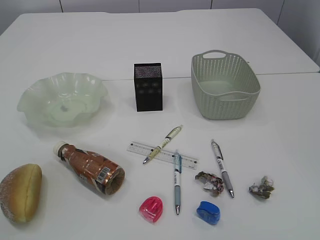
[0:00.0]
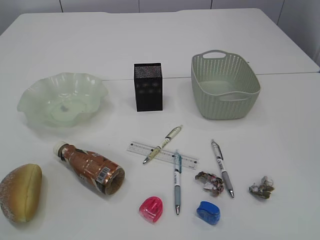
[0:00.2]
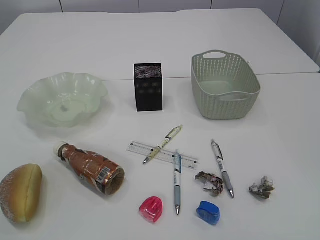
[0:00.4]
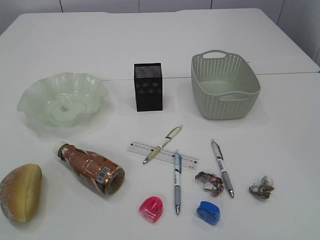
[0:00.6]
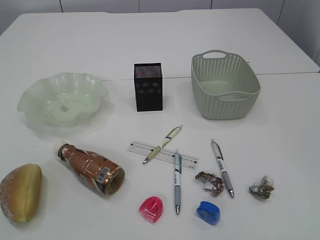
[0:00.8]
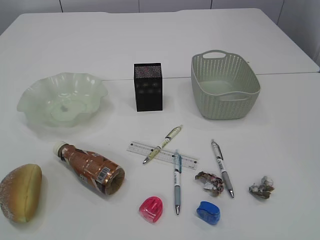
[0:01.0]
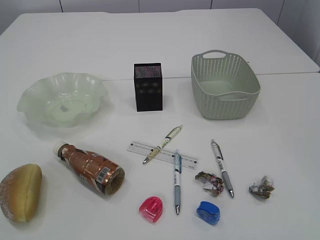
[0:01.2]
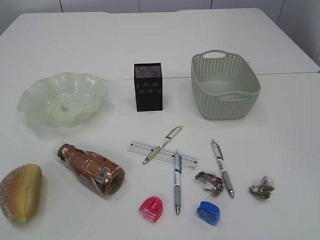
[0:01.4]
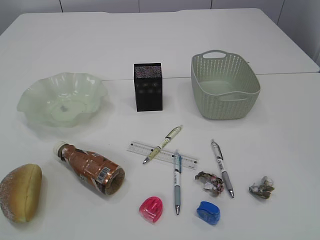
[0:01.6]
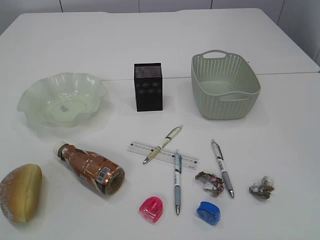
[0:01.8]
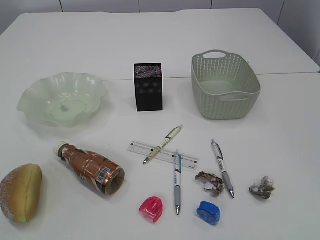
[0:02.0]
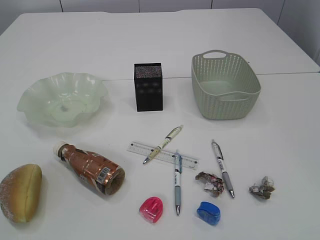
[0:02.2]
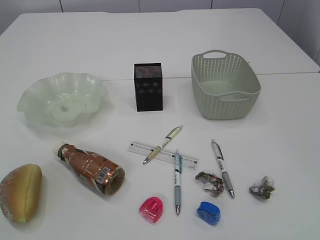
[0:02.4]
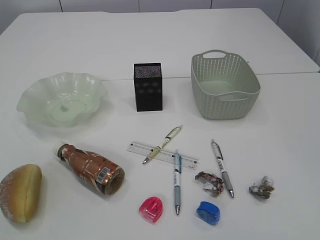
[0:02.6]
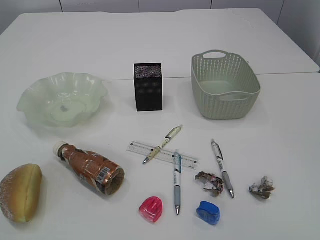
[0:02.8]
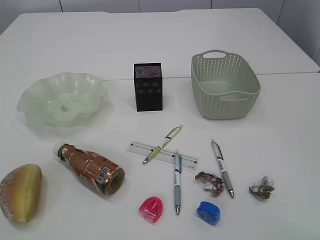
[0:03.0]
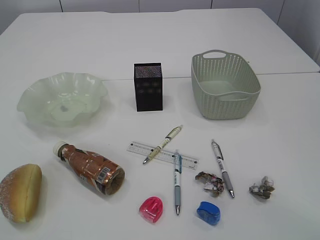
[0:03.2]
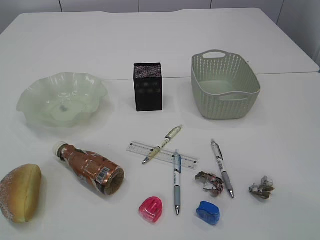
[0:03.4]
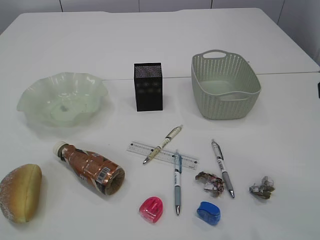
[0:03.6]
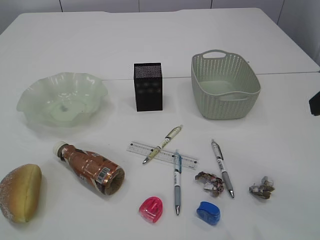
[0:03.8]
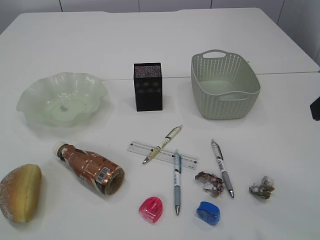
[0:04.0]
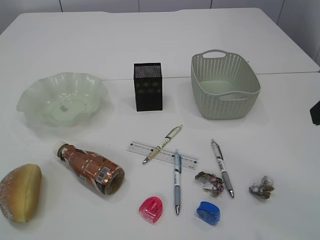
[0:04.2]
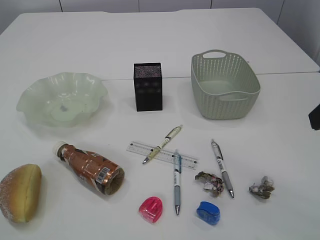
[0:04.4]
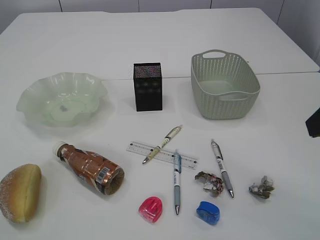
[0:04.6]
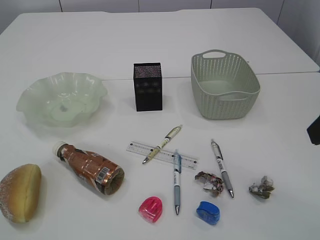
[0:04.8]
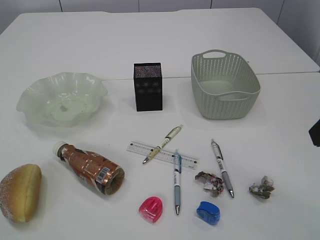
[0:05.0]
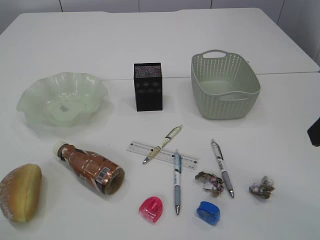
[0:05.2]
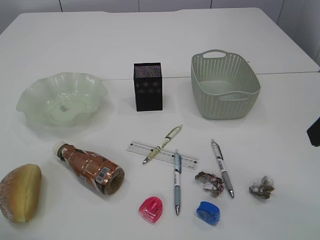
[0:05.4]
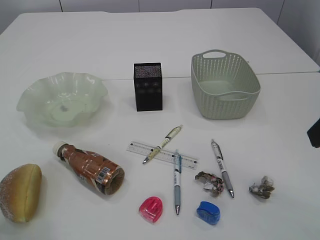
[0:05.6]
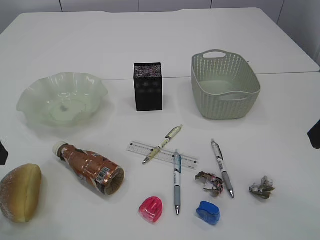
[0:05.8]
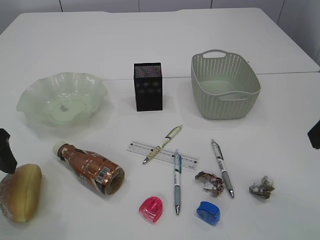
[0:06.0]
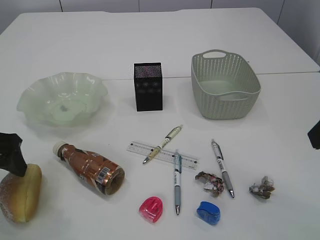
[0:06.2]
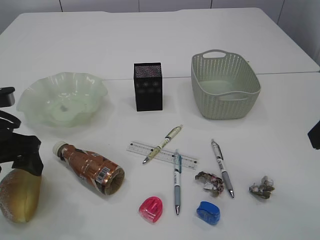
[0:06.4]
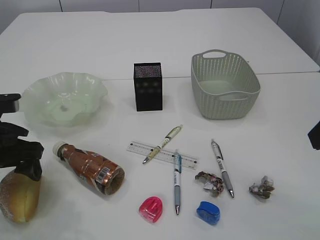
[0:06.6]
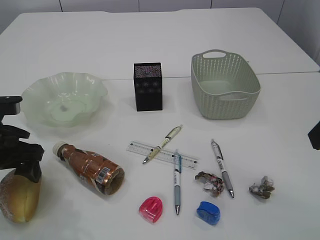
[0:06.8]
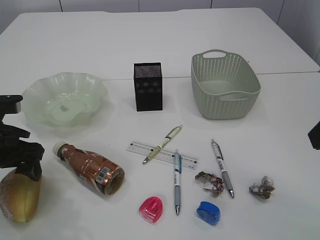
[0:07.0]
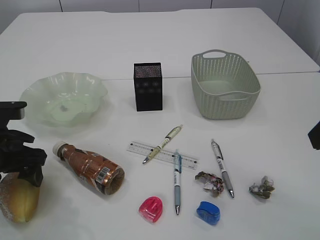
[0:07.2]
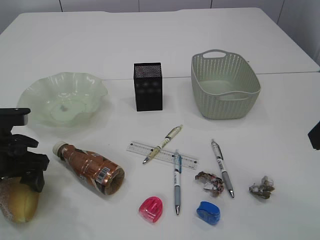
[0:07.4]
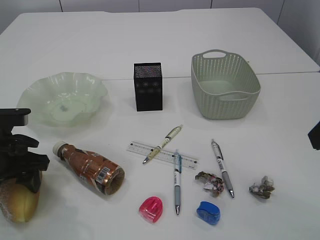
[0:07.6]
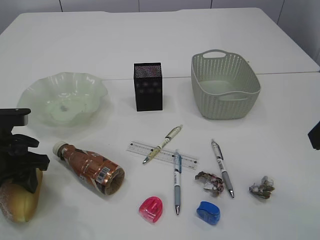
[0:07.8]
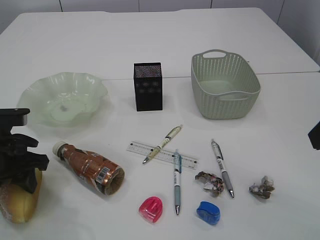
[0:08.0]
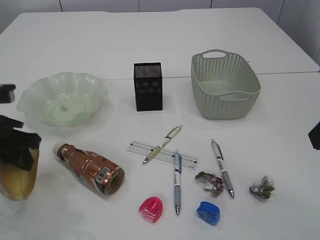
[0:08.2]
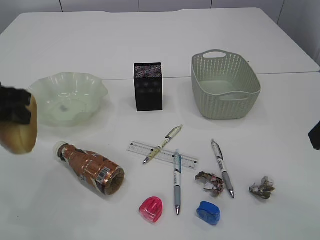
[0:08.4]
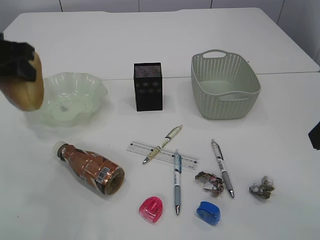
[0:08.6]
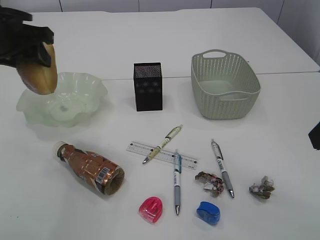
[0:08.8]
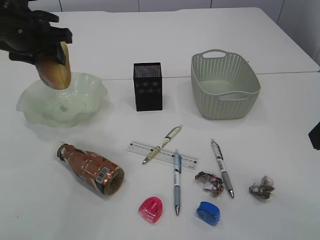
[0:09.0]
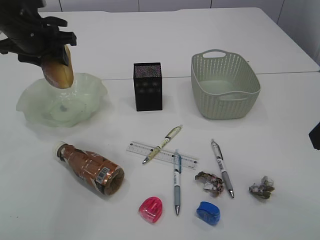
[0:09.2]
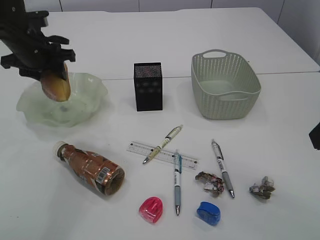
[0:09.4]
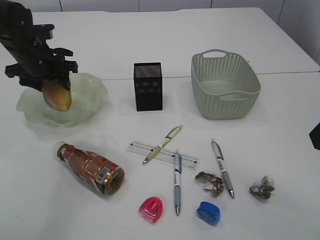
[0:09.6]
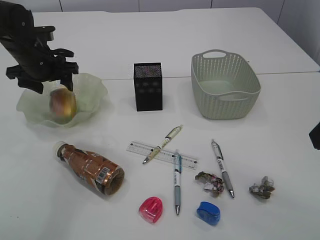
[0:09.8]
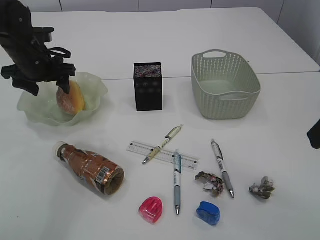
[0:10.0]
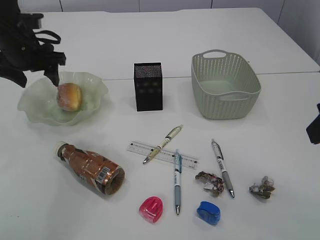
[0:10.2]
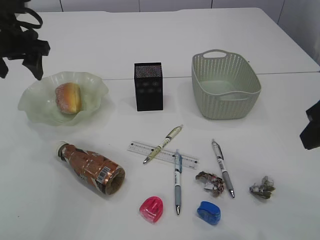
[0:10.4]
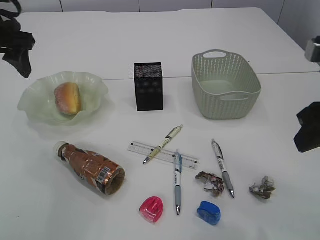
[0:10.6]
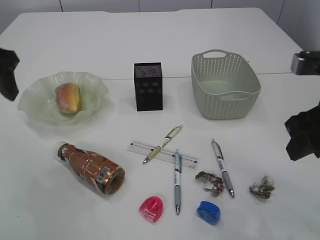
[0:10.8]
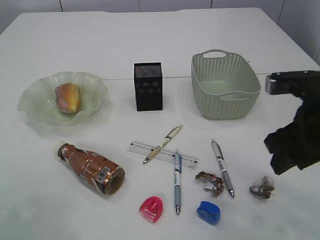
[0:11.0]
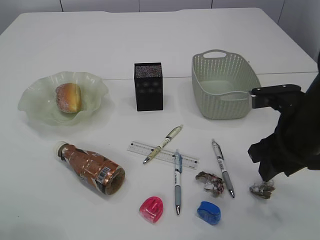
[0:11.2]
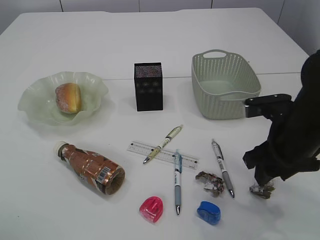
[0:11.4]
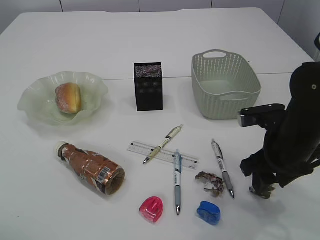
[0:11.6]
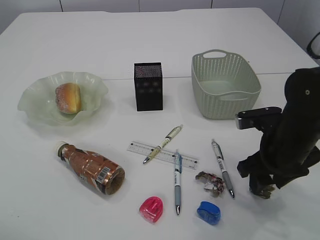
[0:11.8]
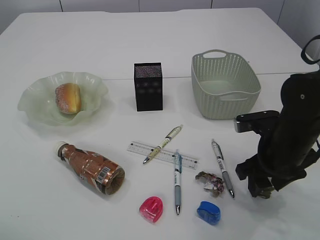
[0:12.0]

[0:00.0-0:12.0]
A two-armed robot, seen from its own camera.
Step, 0:08.4 to 0:10.2: place the bread in the plate.
0:04.4 to 0:06.0: The left gripper travels downward and forward by roughly 15 cm, and opens.
0:06.0 to 0:07.6: The left gripper goes roughly 5 cm downward, and closes up.
0:07.6 to 0:09.0: The left gripper shifts roughly 20 cm upward and forward, and closes its fingers.
0:09.0 to 0:10.4: The left gripper travels downward and back again, some 10 cm each way, and opens up.
0:10.4 to 0:12.0: The right gripper heads downward and forward, covering some 20 cm. Meanwhile the left gripper travels backward by about 25 cm.

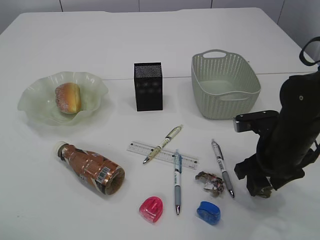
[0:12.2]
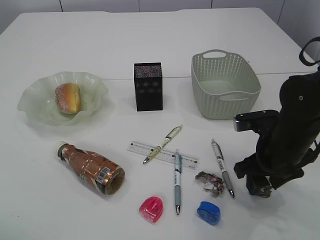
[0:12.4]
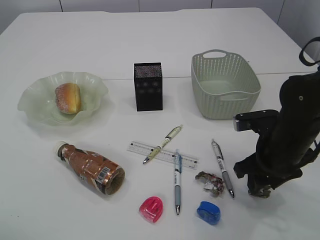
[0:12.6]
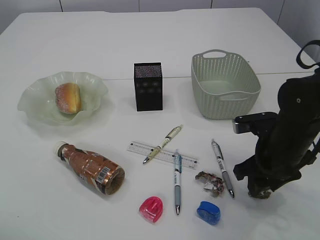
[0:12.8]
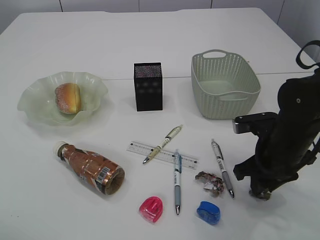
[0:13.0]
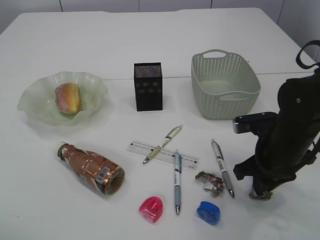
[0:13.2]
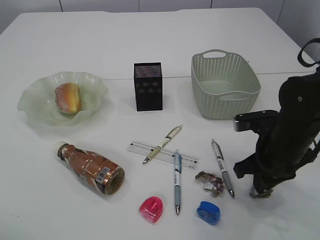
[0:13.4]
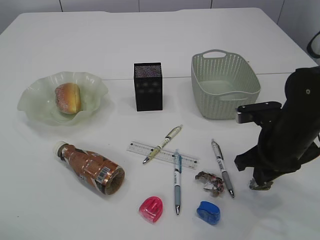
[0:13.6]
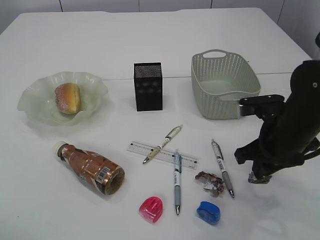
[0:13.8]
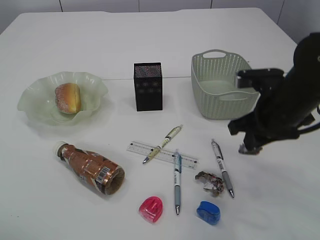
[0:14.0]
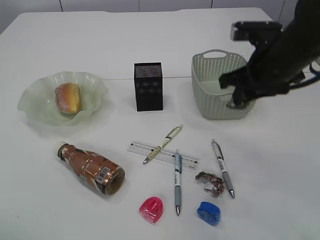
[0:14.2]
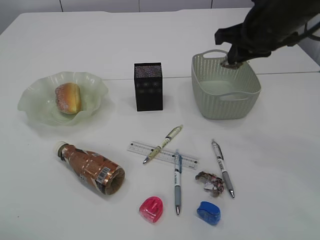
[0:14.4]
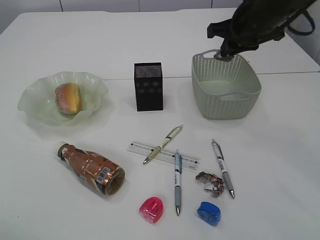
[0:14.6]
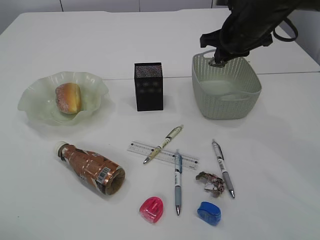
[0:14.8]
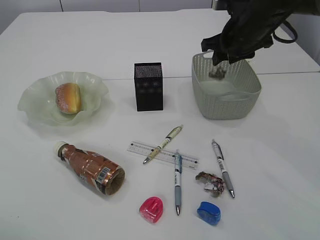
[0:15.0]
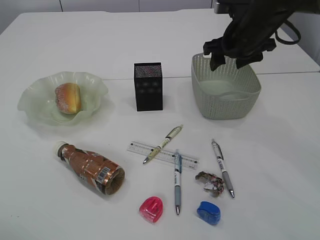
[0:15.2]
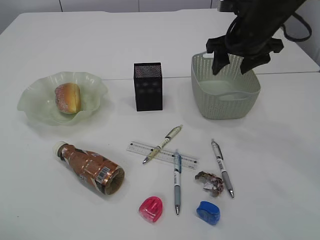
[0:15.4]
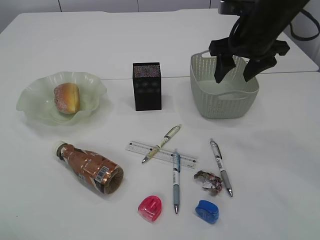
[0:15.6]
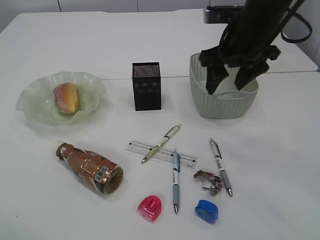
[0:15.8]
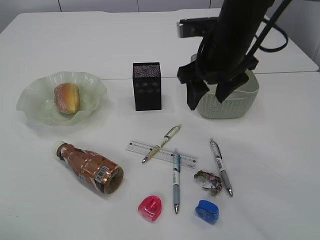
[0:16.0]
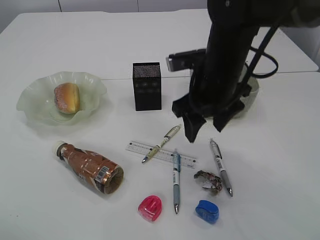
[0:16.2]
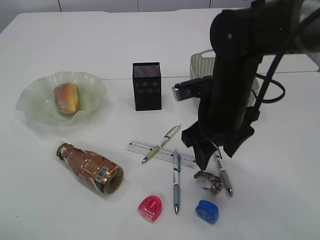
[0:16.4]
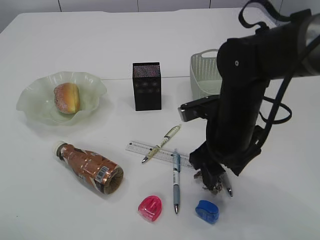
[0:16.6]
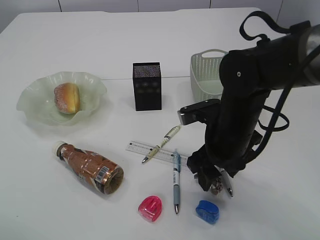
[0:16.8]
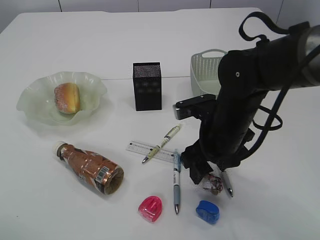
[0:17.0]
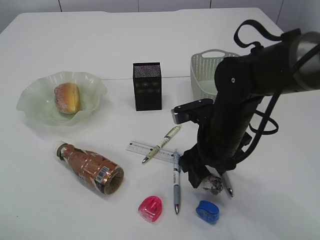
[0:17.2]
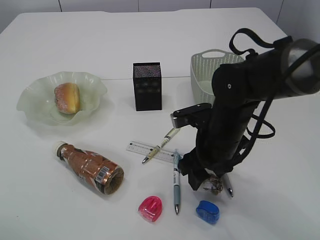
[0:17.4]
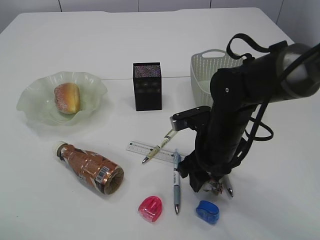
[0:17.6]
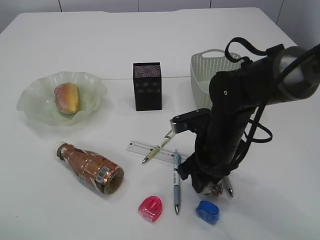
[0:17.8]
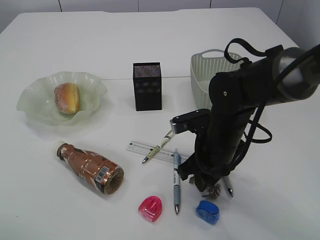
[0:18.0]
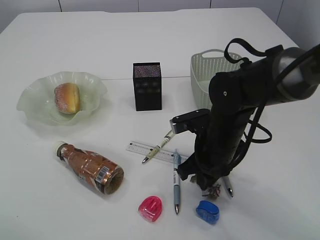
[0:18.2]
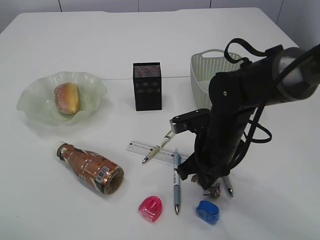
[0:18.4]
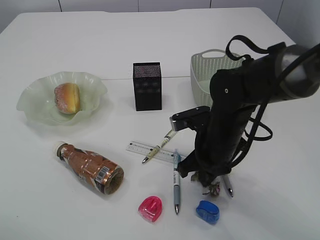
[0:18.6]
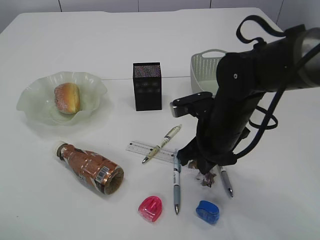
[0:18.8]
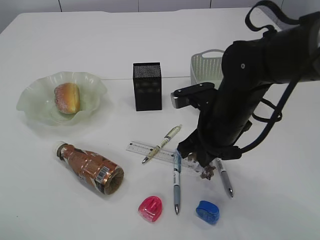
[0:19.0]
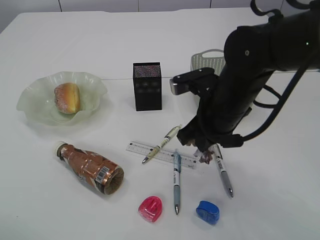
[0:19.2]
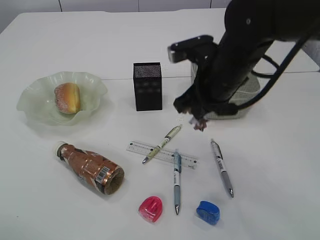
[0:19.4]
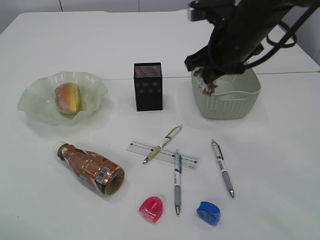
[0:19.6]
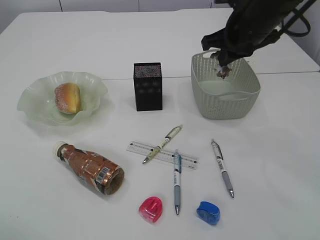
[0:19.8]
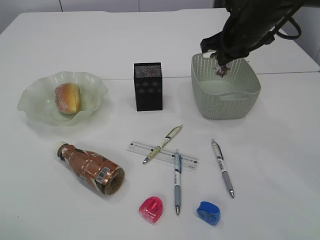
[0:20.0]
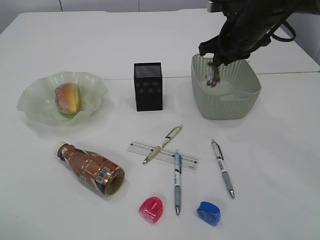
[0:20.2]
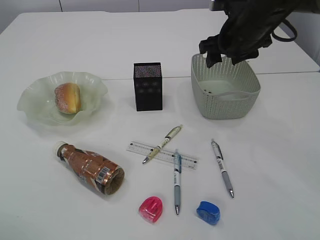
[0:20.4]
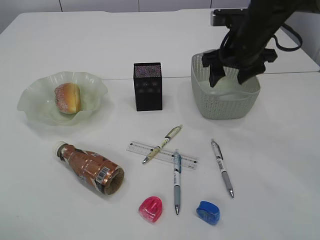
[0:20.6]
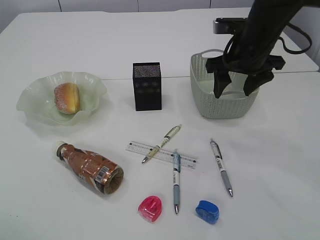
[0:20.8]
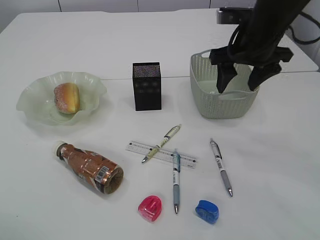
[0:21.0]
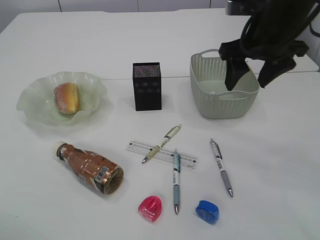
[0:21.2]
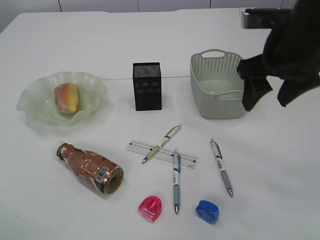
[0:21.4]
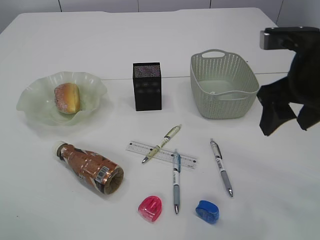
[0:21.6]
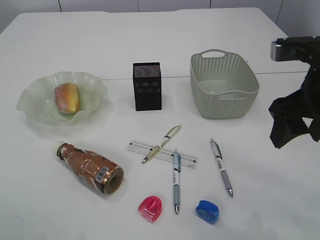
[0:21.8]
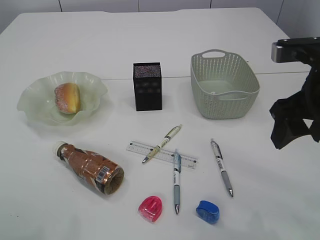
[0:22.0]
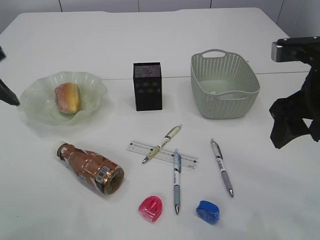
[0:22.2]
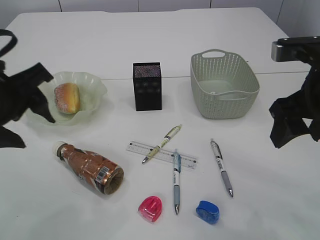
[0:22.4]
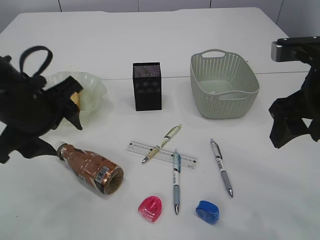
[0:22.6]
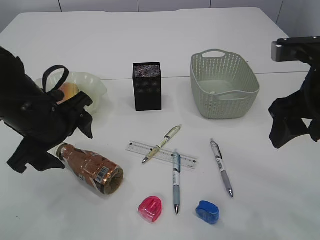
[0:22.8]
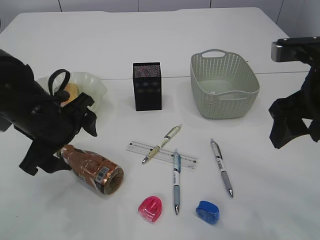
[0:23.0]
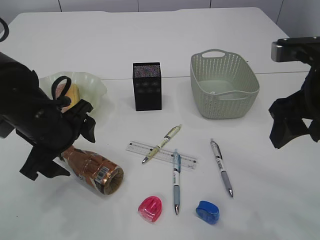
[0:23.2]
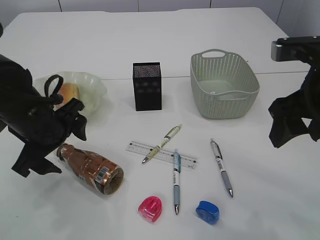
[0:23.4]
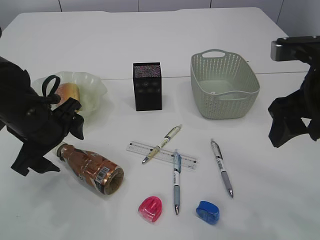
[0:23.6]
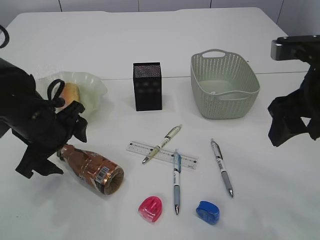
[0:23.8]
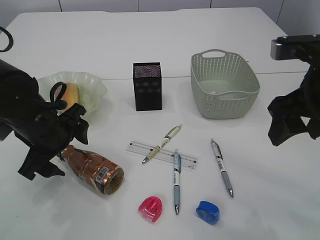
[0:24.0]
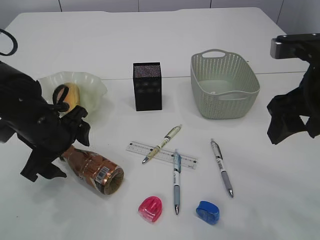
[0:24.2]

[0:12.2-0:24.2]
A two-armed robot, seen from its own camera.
Step, 0:14.0 to 0:15.2: Place the waste paper in the basket.
Step, 0:15.4 to 0:19.2: Pick up the waste paper.
Step, 0:19.4 to 0:20.4: Place the waste paper in the basket.
0:12.2 to 0:13.8: The right gripper closes up.
0:13.8 to 0:15.2: The right gripper goes approximately 20 cm forward and upward, and opens up.
0:15.2 to 0:16.6: The right gripper moves backward, downward and to the left, about 20 cm.
0:16.6 to 0:18.2: The right gripper ends up some 5 cm from where it was, and closes its fingers.
0:18.2 to 0:19.8: The right gripper shifts about 20 cm upward and forward.
0:19.8 to 0:21.2: The right gripper opens its fingers.
0:21.2 to 0:22.6: The right gripper shifts some 10 cm backward. The left gripper shifts roughly 20 cm to the right, downward and forward.
0:22.6 to 0:24.2: The left gripper travels downward by about 10 cm, and opens up.
